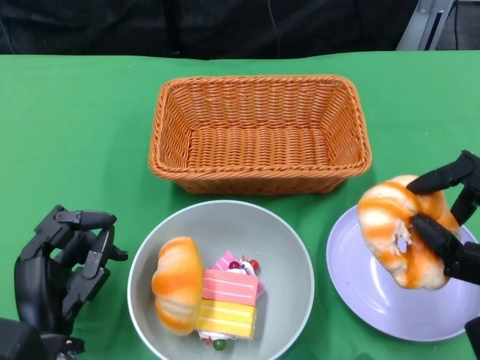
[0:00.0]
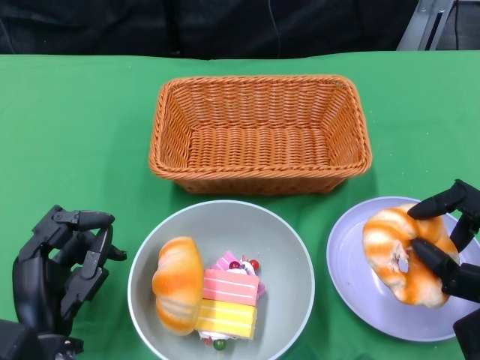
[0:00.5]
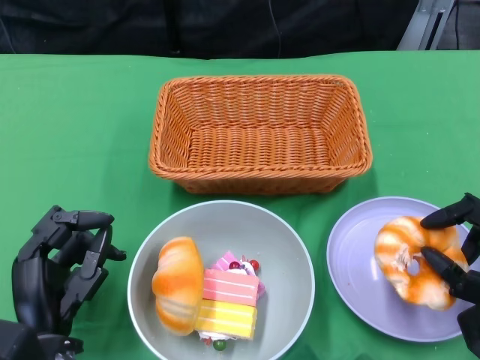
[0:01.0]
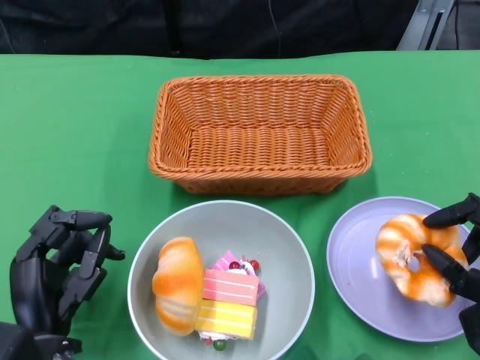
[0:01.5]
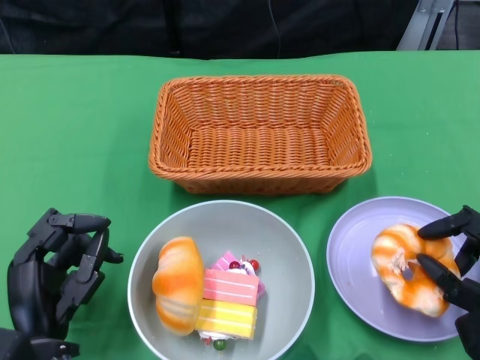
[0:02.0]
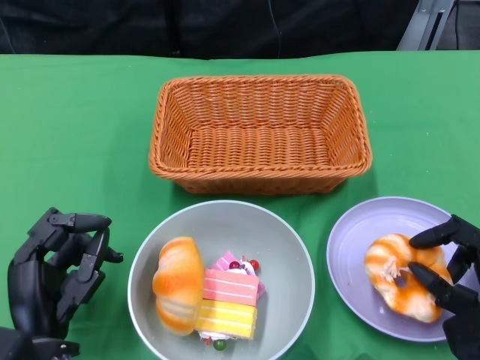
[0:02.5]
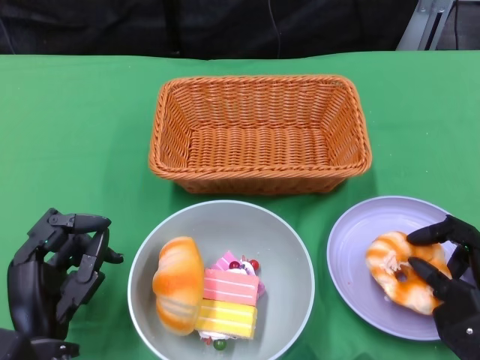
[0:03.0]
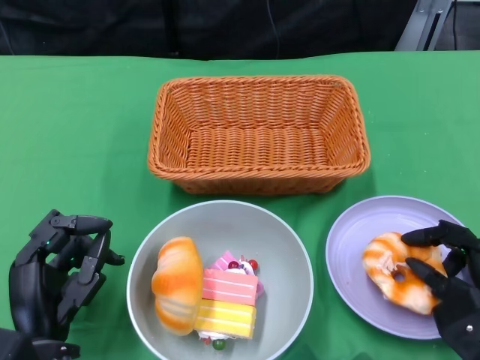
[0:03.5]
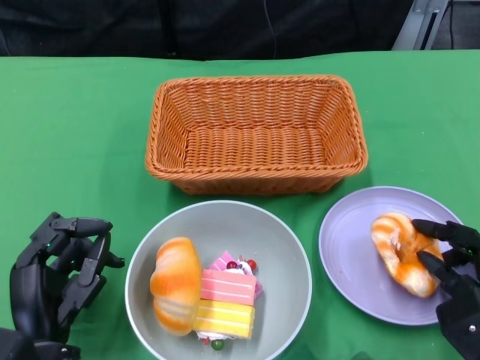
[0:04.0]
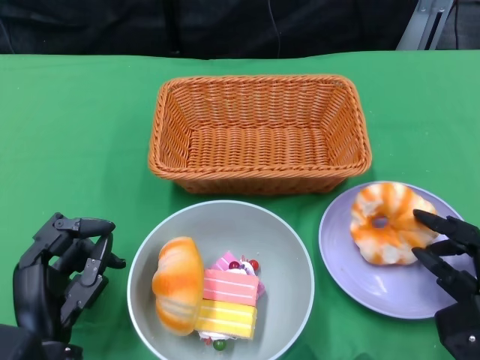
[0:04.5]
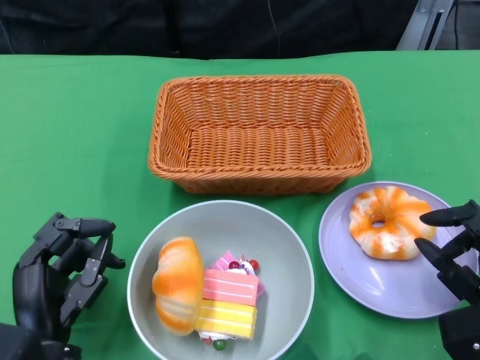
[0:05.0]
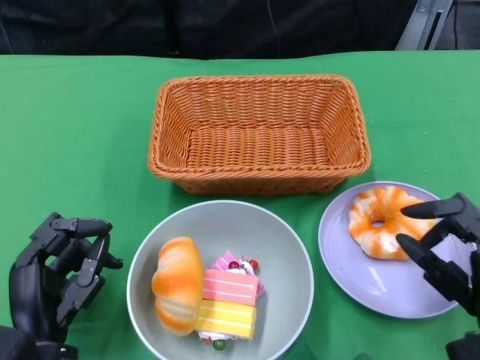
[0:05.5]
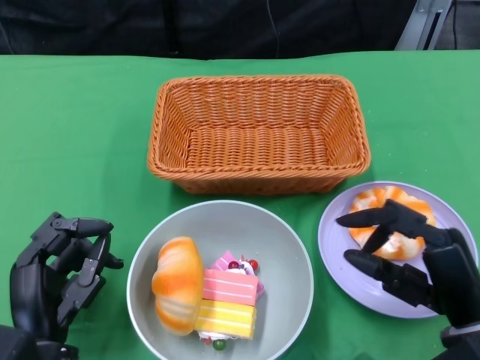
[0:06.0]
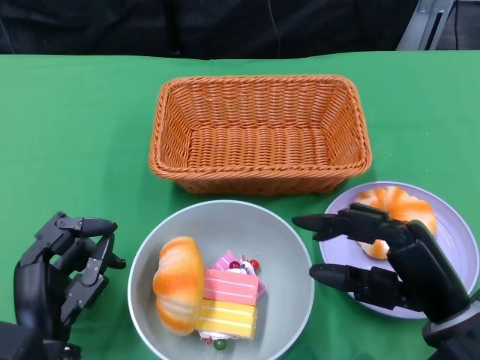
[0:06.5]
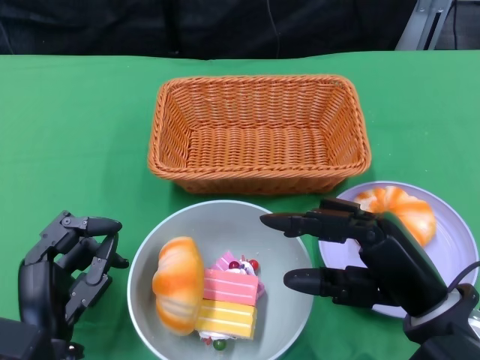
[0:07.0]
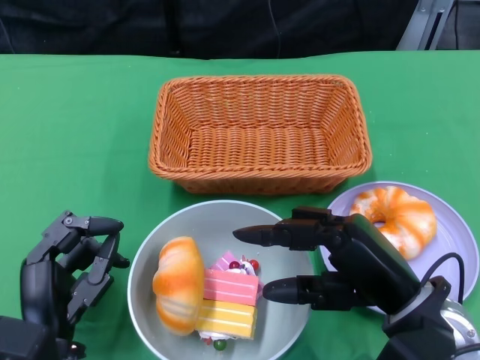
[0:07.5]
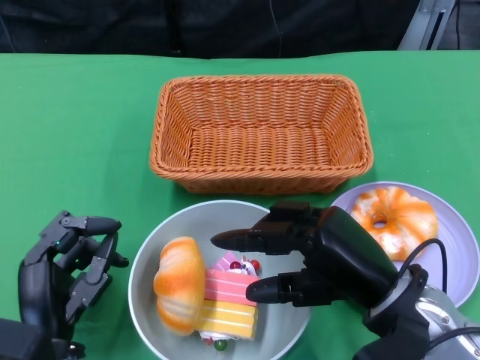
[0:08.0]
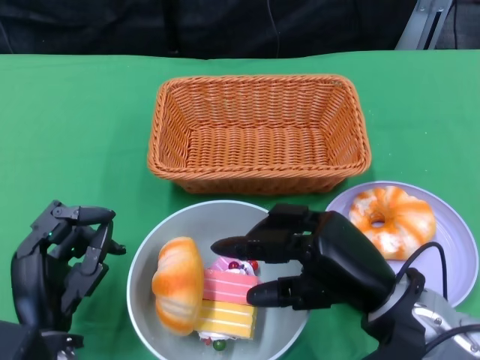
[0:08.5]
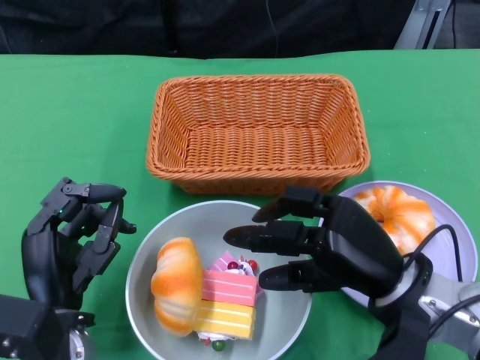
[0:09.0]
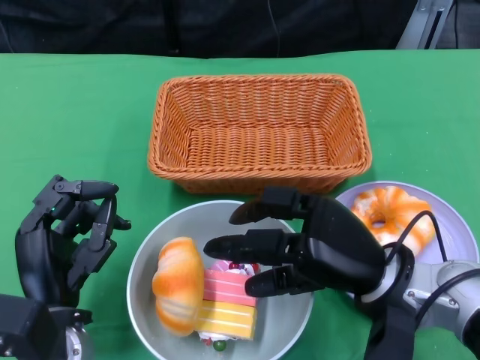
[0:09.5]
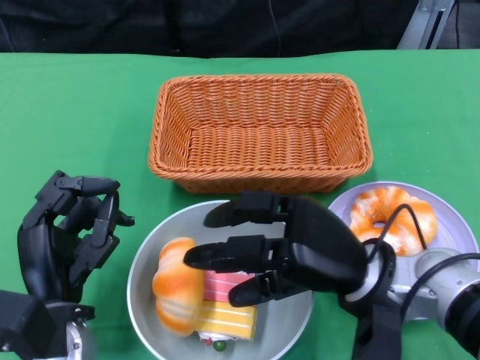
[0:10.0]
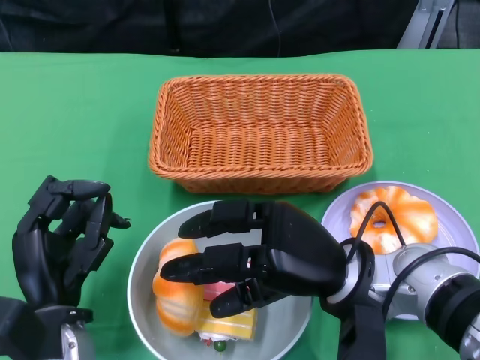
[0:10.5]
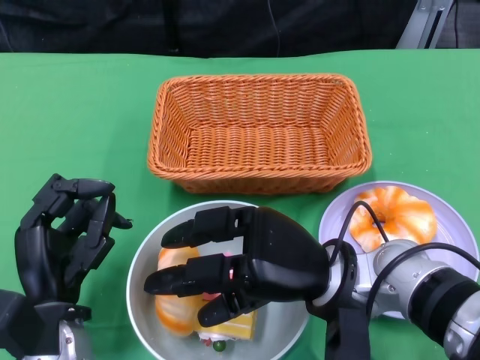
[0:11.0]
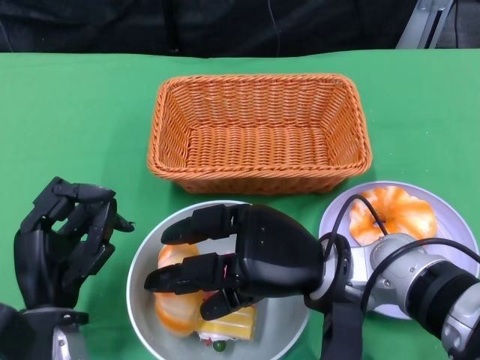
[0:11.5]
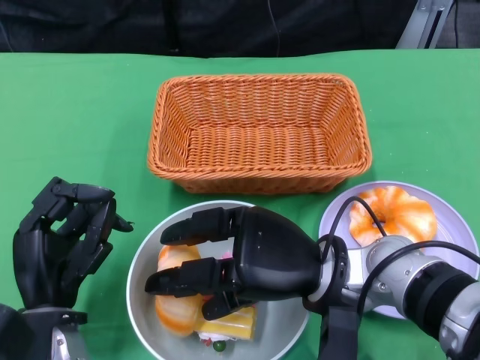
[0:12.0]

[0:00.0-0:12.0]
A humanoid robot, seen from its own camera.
0.0 to 2.0 s: The right hand goes roughly 10 cm downward.
2.0 to 4.0 s: The hands make only small movements.
4.0 to 6.0 s: The right hand is displaced upward by approximately 5 cm.
6.0 to 8.0 s: The right hand heads to the left, covering about 5 cm.

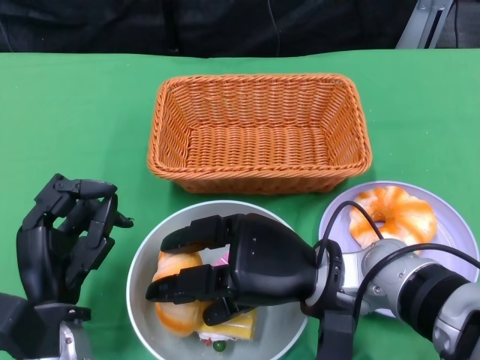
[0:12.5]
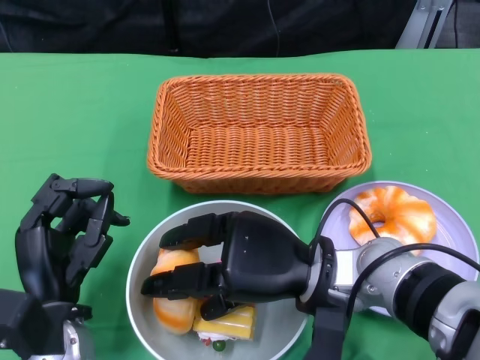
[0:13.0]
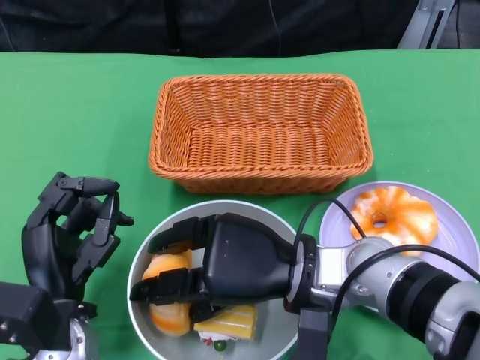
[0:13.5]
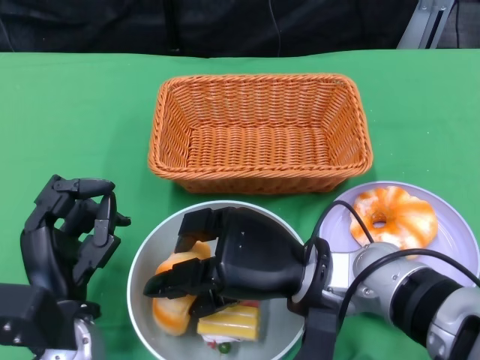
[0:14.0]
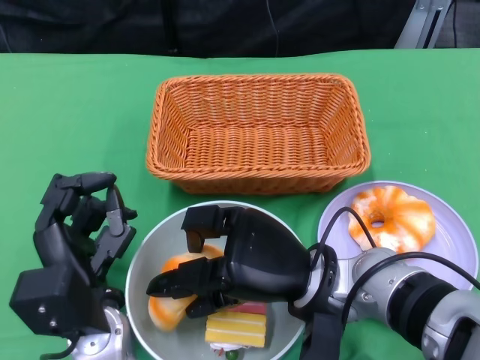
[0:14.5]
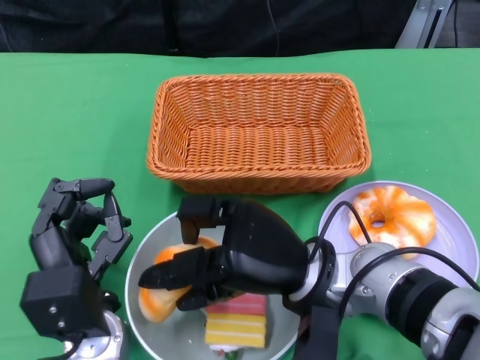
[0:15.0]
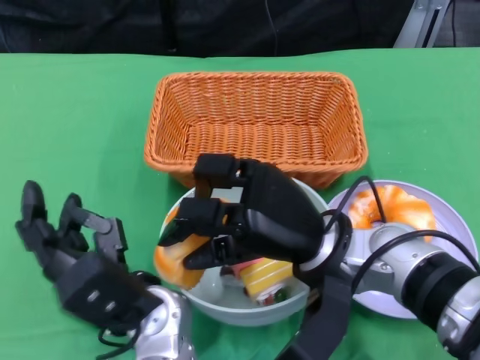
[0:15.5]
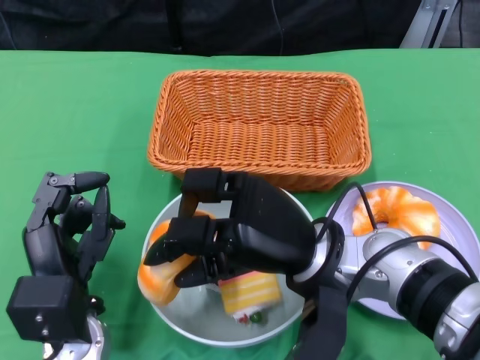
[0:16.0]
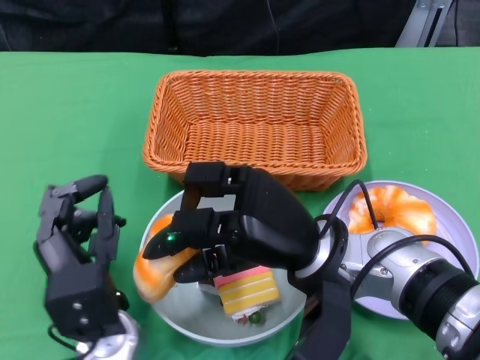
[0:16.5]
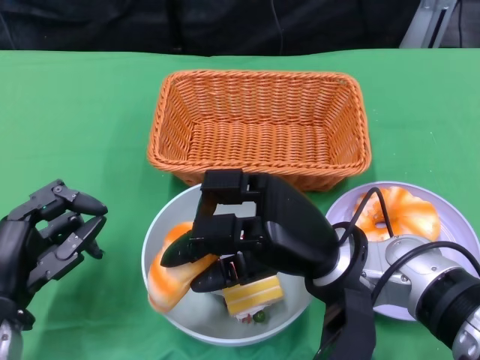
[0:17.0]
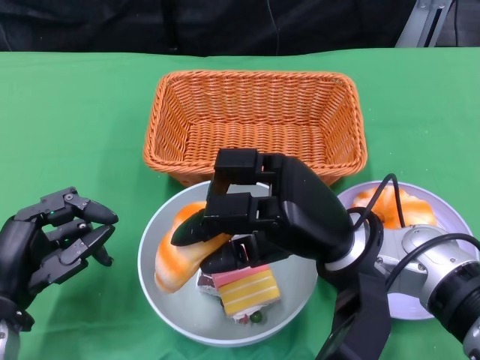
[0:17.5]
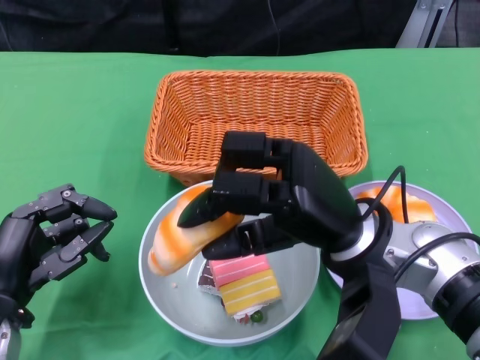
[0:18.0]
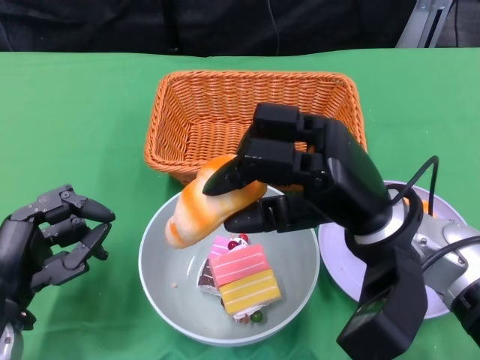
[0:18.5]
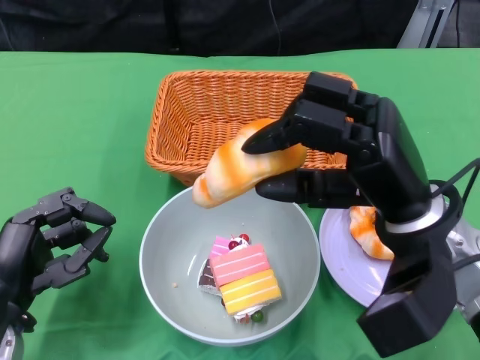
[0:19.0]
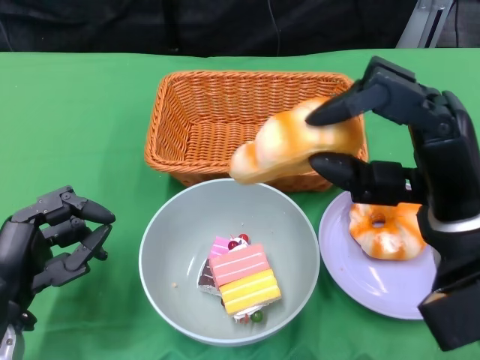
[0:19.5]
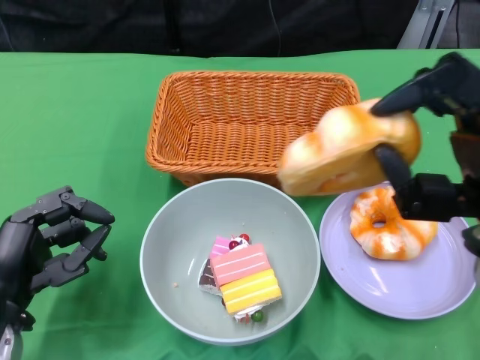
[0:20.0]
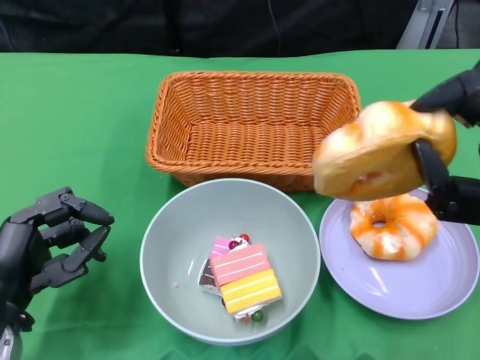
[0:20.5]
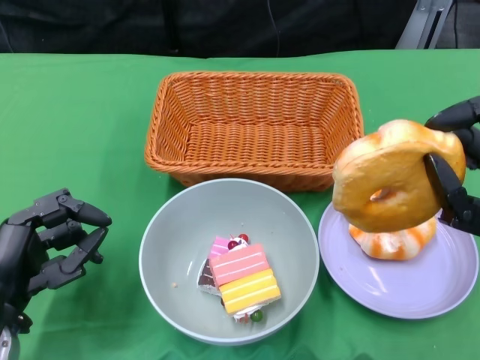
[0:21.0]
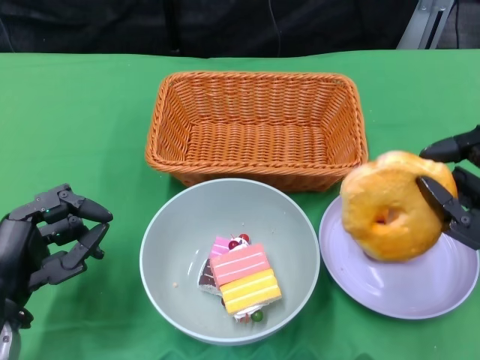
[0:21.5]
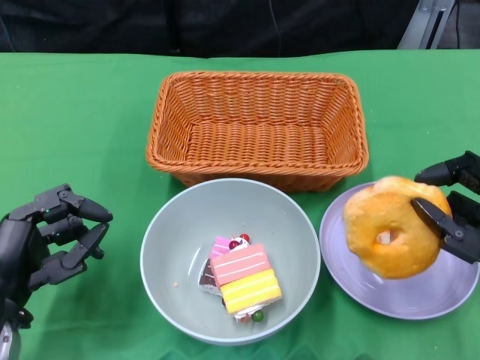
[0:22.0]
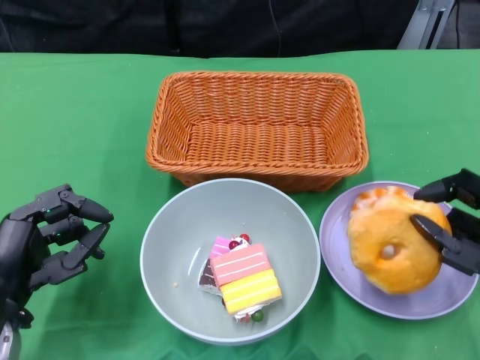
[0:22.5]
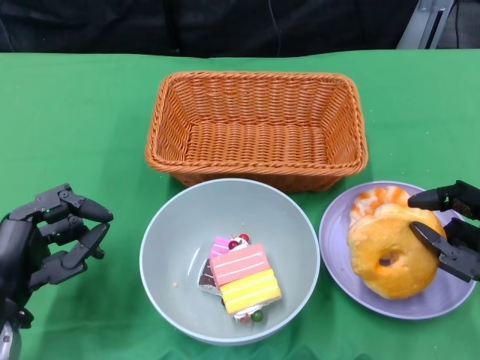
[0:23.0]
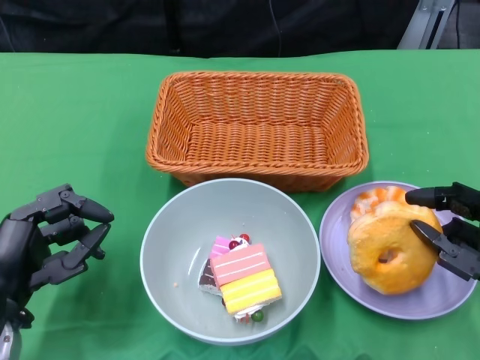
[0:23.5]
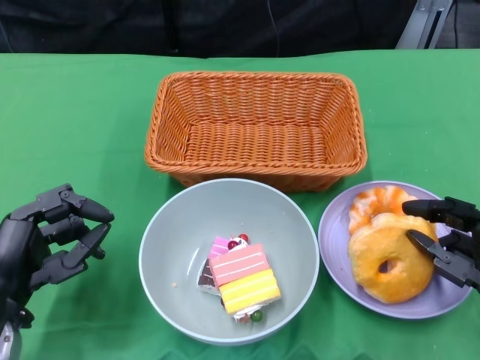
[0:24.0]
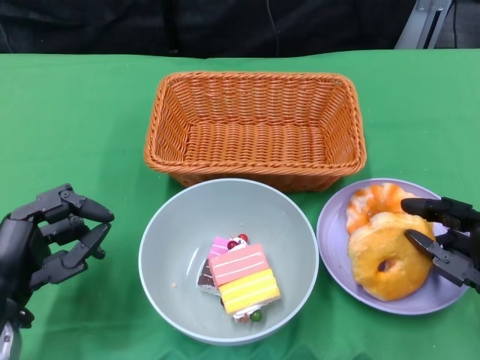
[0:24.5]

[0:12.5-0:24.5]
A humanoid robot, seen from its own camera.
14.5 to 16.5 s: The left hand goes to the right and returns, about 5 cm each way.
16.5 to 18.5 s: The right hand goes some 5 cm to the right; the left hand goes about 10 cm to the left.
18.5 to 20.5 s: The right hand is displaced to the right and backward by some 10 cm.
20.5 to 22.5 s: The right hand travels downward by about 10 cm.
22.5 to 24.5 s: The hands move only a little.

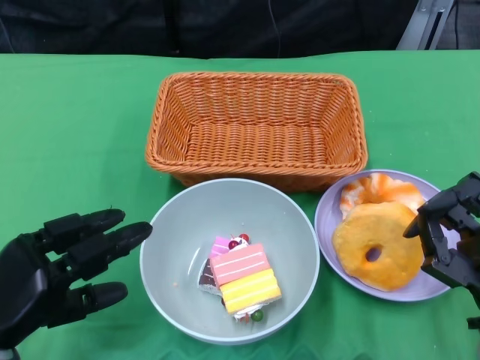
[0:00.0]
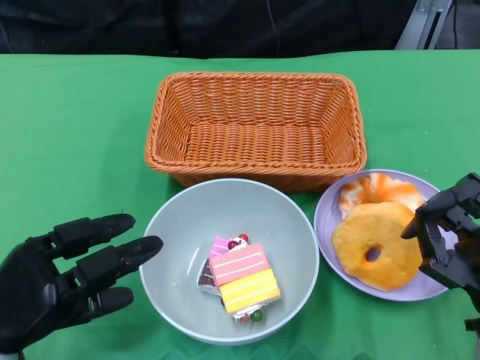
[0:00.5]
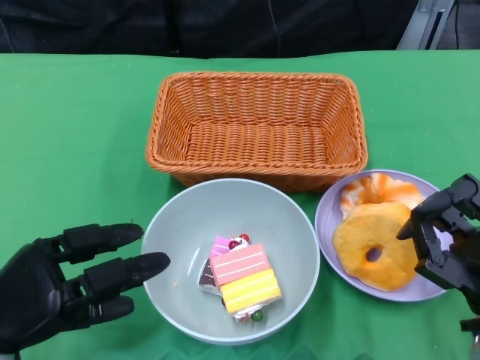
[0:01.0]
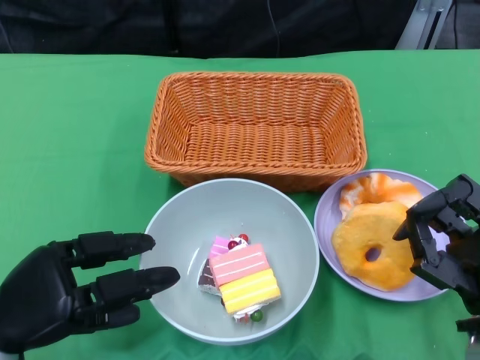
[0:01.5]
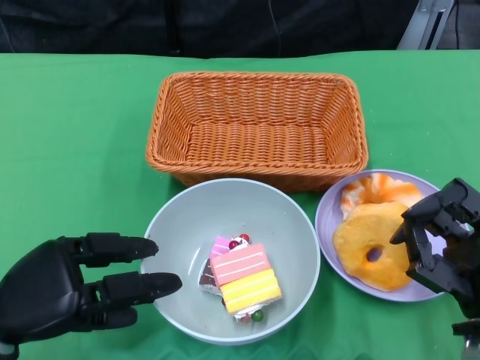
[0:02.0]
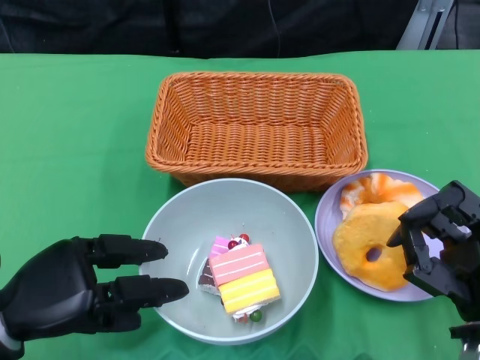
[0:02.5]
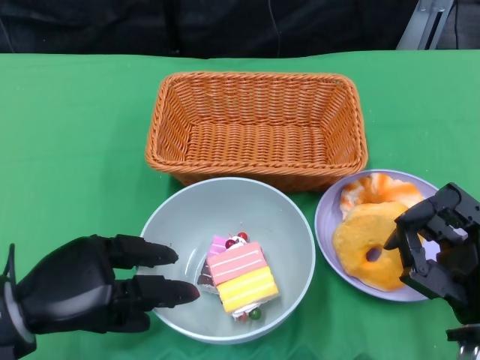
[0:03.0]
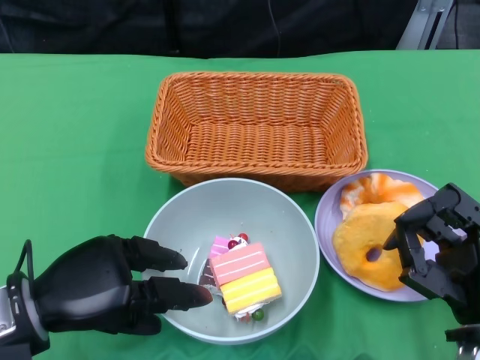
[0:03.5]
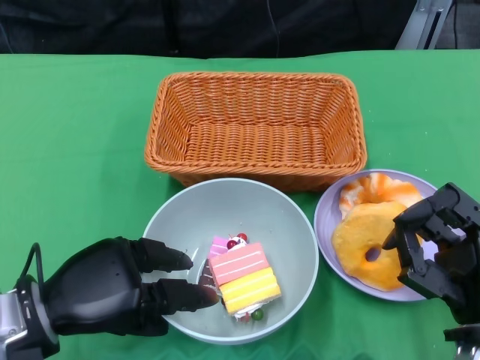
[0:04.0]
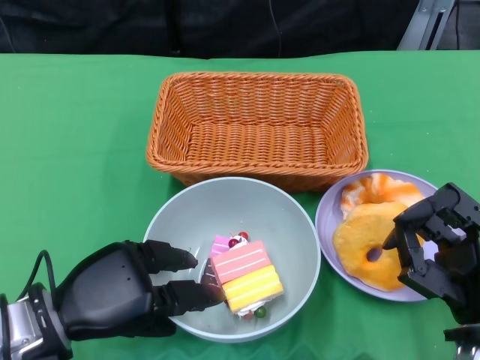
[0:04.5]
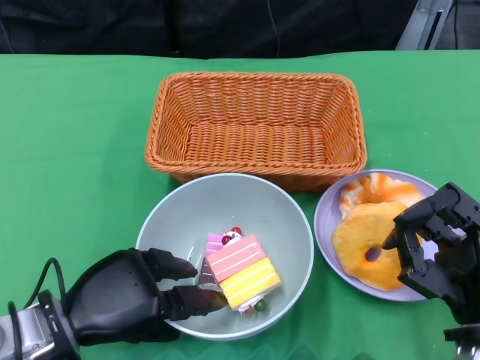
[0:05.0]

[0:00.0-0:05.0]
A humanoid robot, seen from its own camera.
2.5 to 5.0 s: The hands move only a little.
